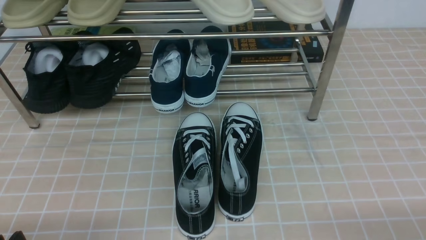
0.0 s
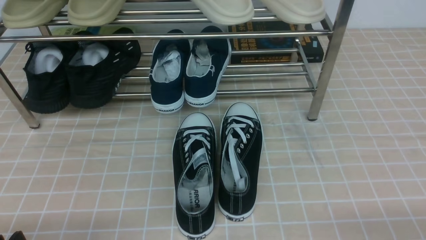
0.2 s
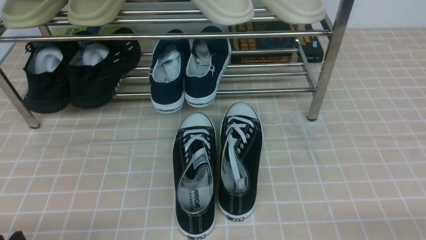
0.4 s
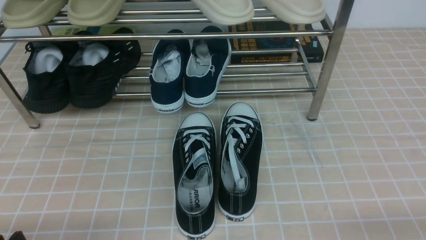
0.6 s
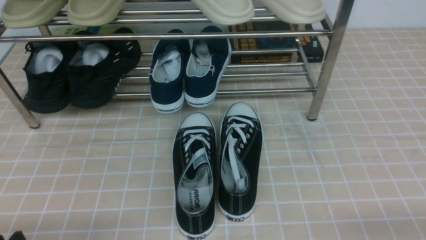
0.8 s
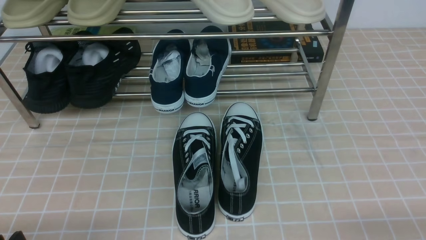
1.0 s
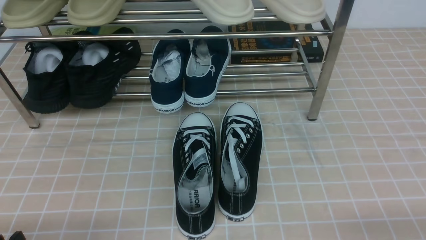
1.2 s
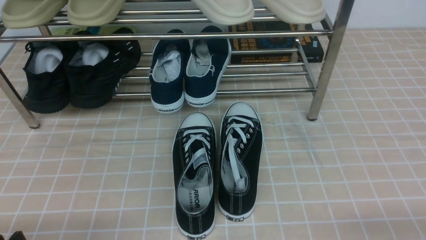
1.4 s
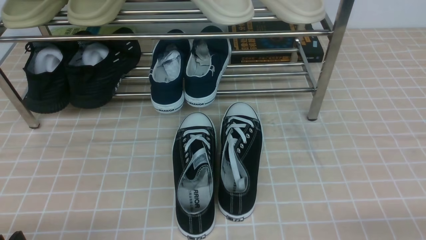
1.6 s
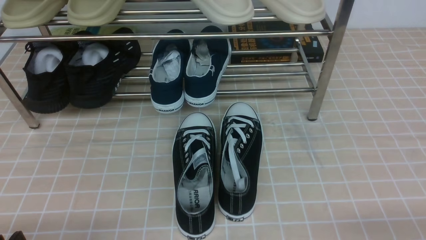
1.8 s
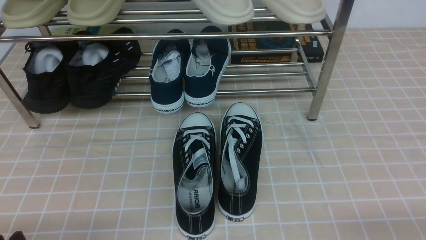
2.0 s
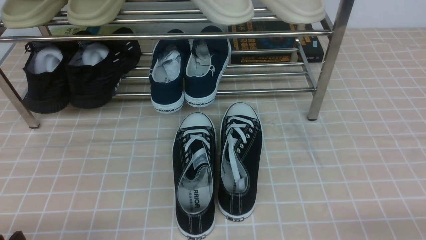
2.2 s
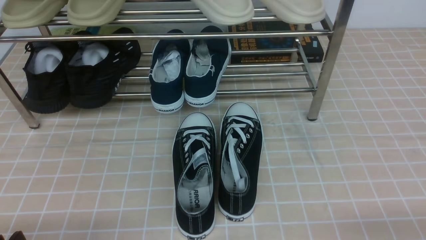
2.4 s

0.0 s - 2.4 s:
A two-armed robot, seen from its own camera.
1.2 s - 2.4 s: The two grippers keep their place.
